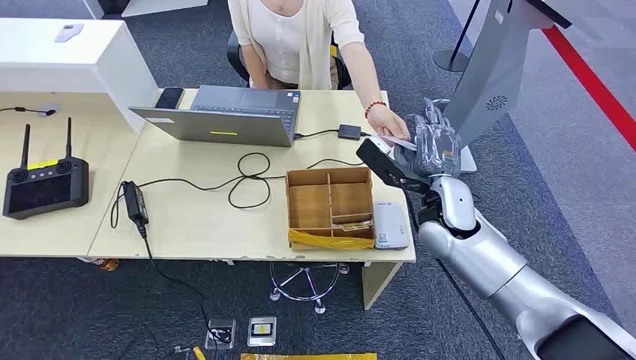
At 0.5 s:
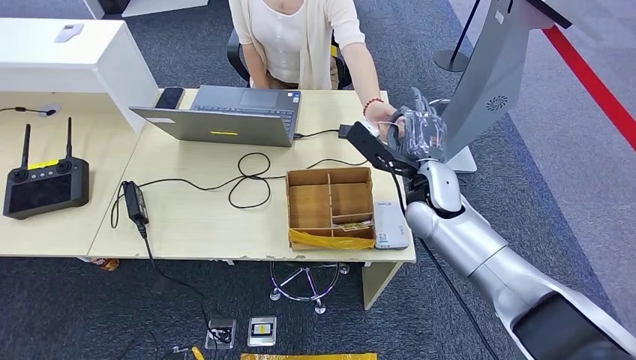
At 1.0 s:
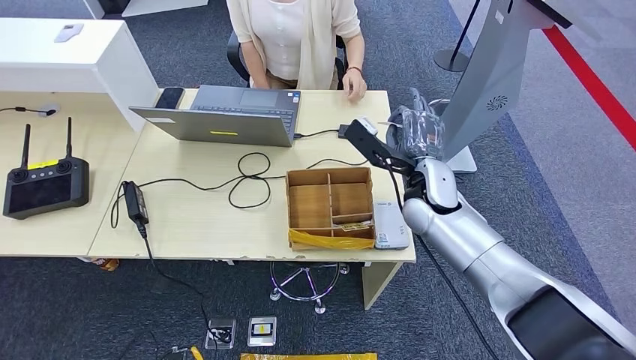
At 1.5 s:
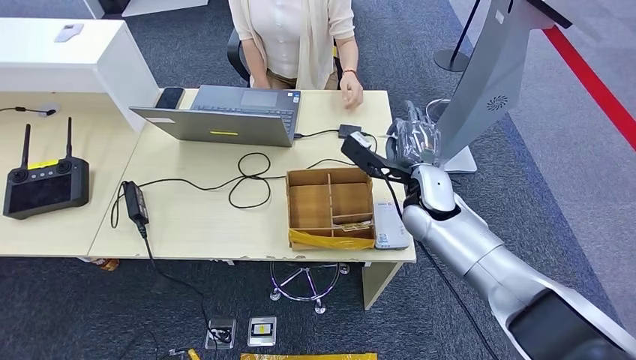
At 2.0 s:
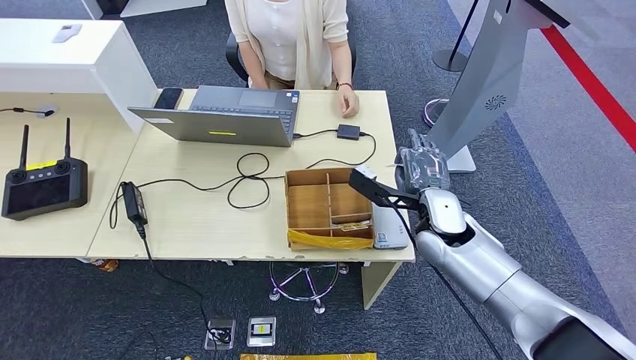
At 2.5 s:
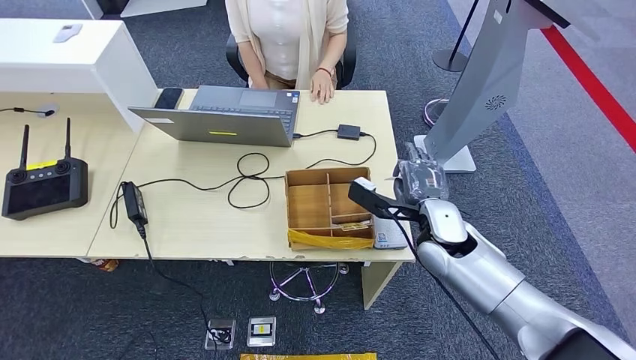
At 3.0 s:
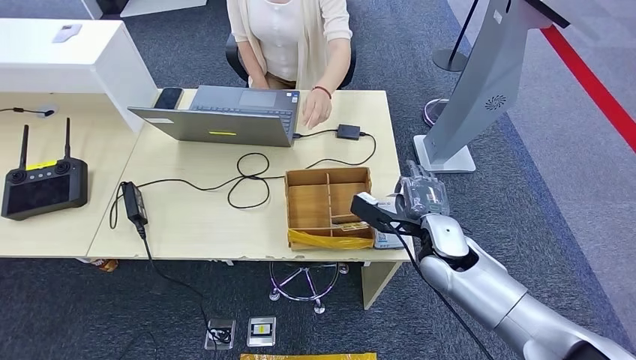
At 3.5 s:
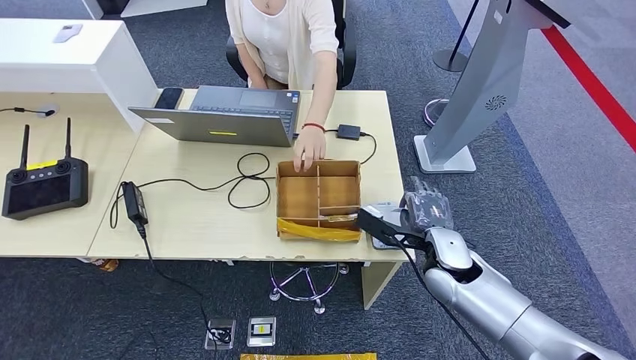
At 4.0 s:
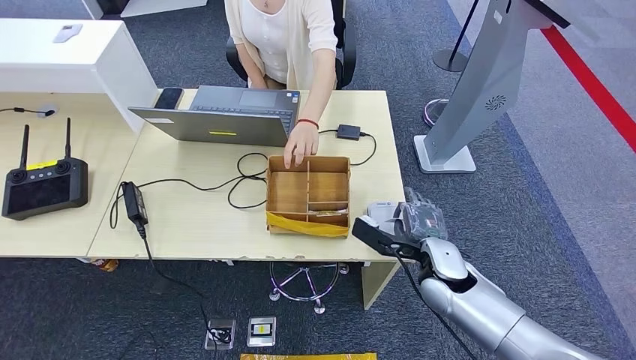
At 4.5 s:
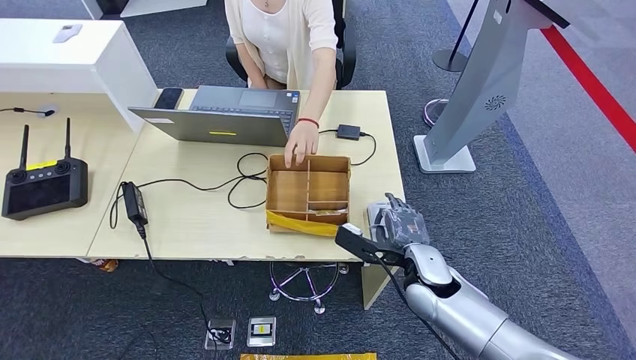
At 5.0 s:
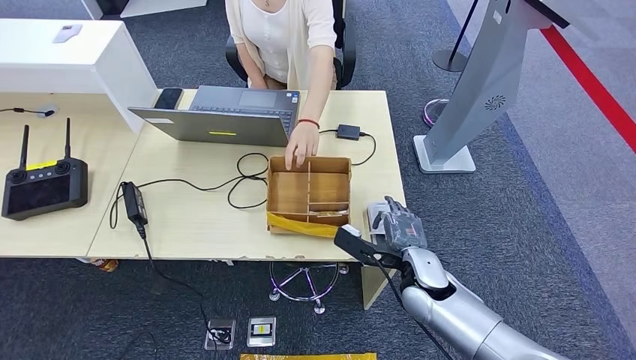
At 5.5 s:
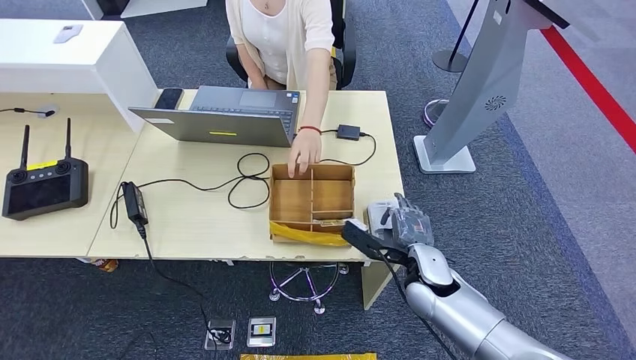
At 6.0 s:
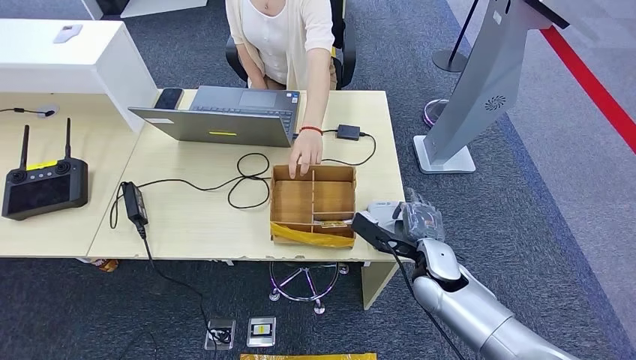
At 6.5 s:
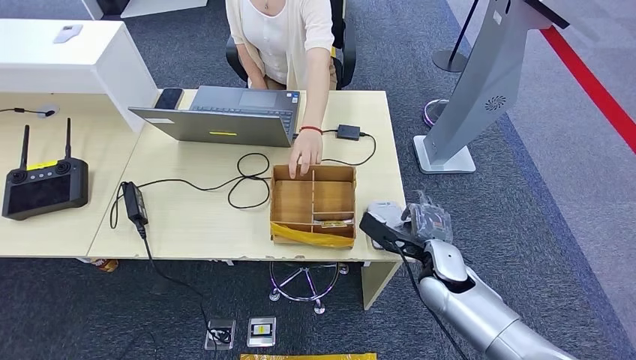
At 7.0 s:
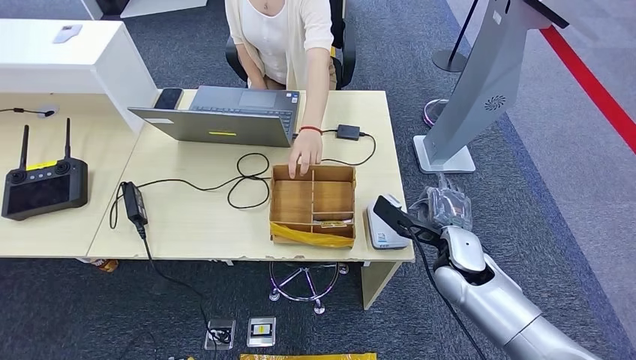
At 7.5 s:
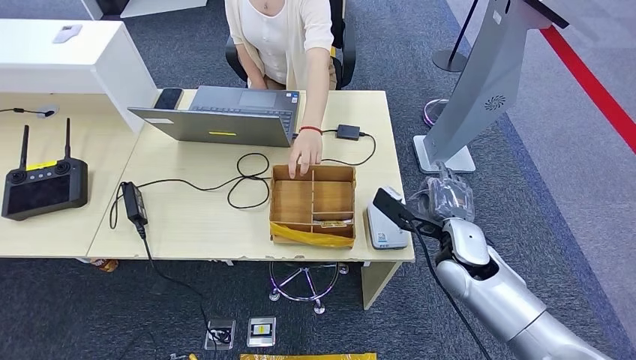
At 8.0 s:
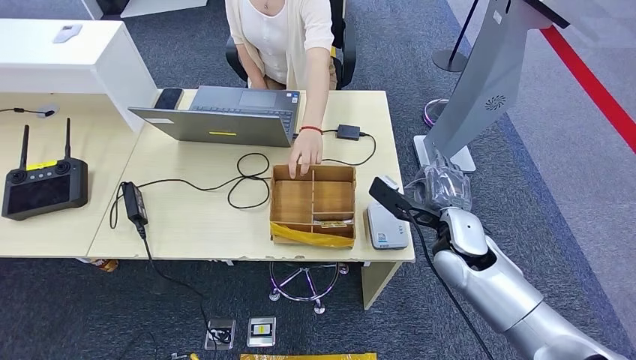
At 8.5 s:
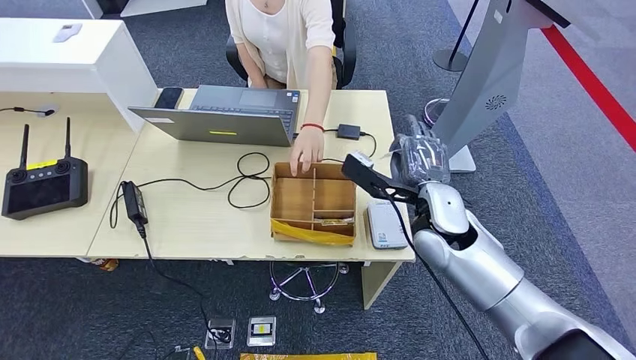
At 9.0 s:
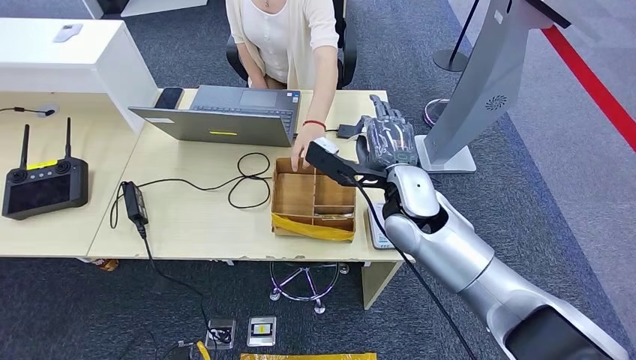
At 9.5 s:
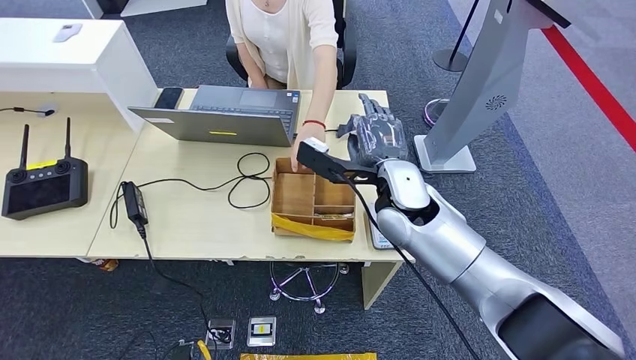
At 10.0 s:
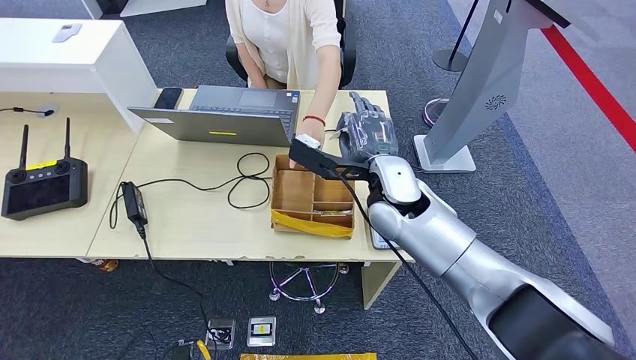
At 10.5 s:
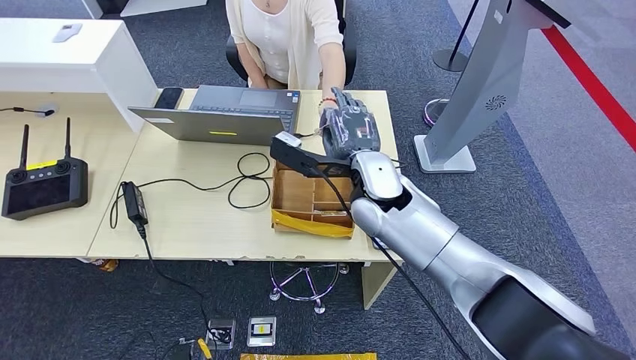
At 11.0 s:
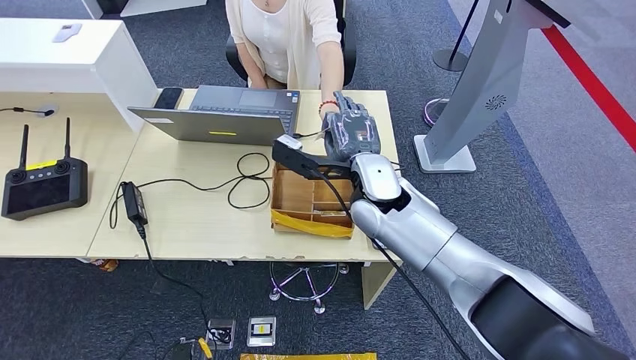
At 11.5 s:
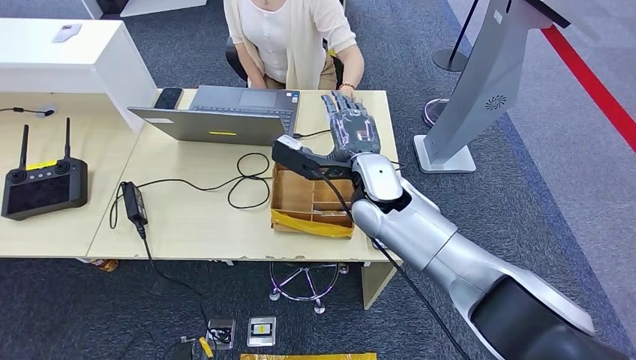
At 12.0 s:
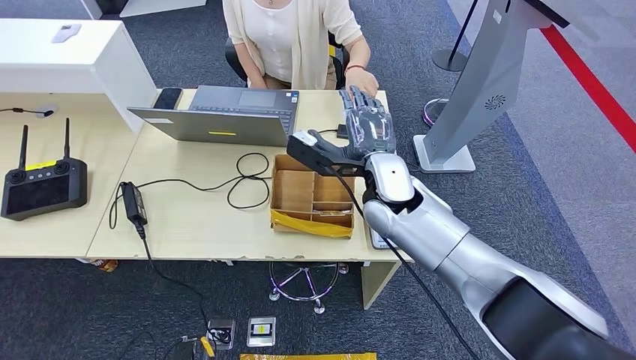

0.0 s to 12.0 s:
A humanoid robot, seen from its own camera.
Step, 0.0 to 3.0 s: Take the ID card from the person's hand.
Step, 3.5 to 7.5 s: Place the ID card on the card reader.
2.0 to 4.0 s: The right hand is displaced downward and backward by roughly 10 cm.
4.0 to 6.0 s: The hands make only small movements.
6.0 to 8.0 s: The right hand shifts approximately 5 cm upward.
8.0 to 10.0 s: The right hand moves to the left, upward and forward, approximately 15 cm.
10.0 to 12.0 s: The hands move only a little.

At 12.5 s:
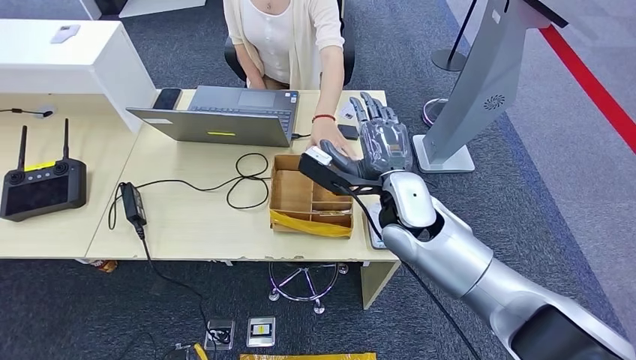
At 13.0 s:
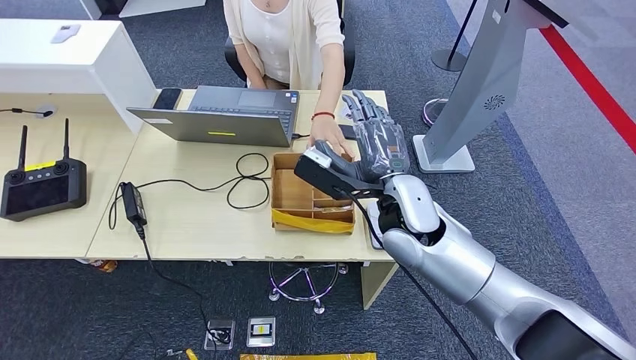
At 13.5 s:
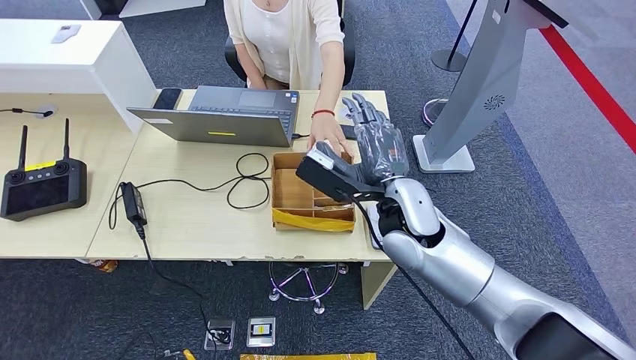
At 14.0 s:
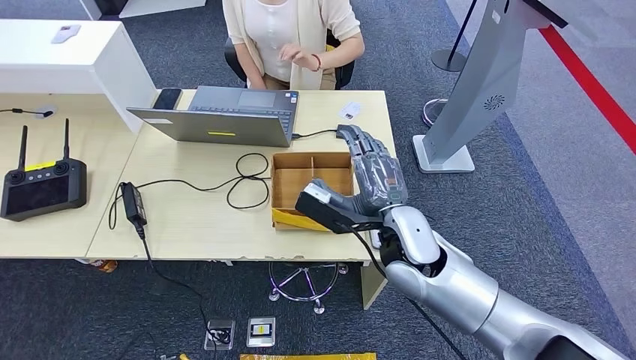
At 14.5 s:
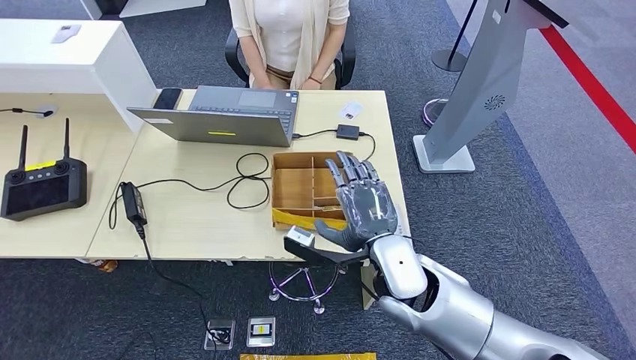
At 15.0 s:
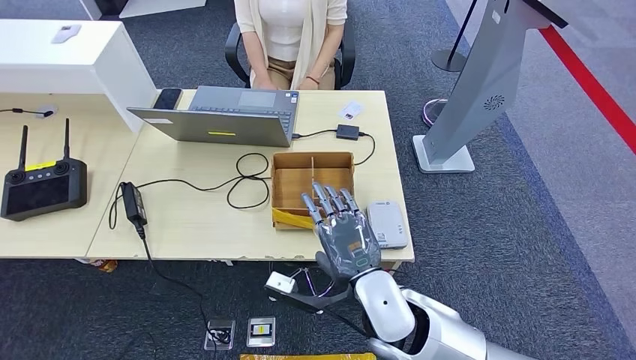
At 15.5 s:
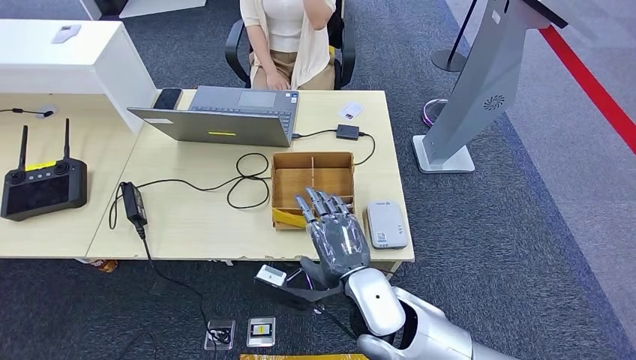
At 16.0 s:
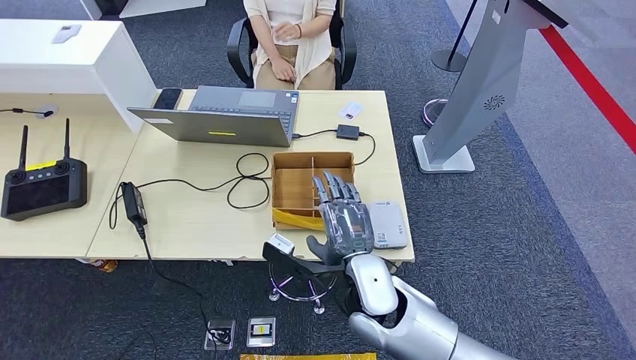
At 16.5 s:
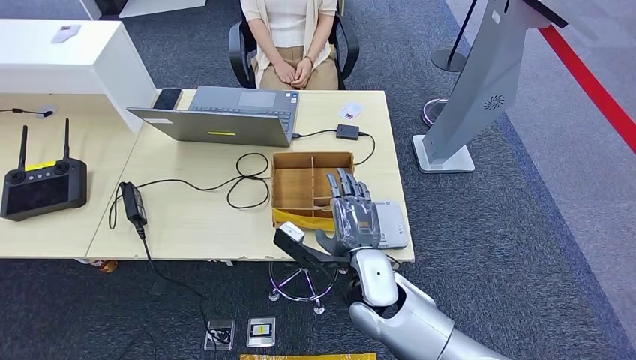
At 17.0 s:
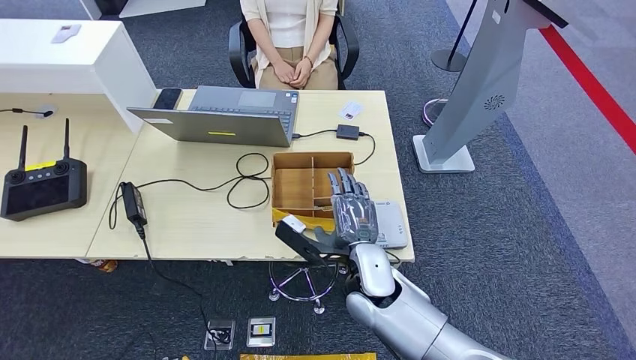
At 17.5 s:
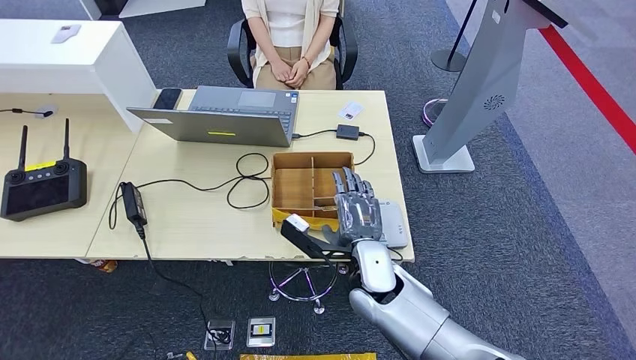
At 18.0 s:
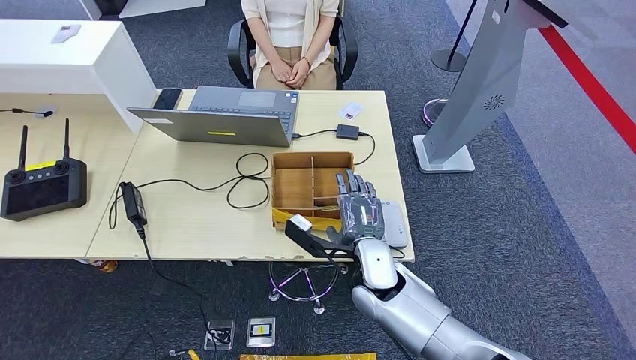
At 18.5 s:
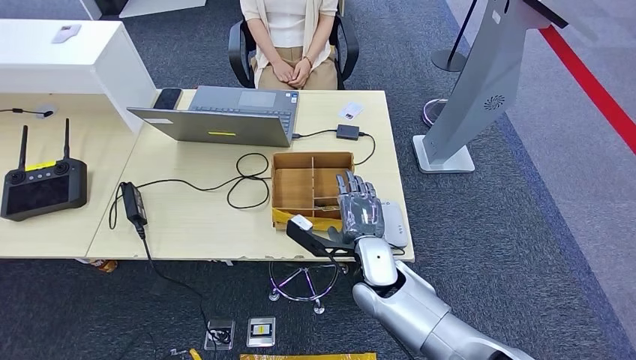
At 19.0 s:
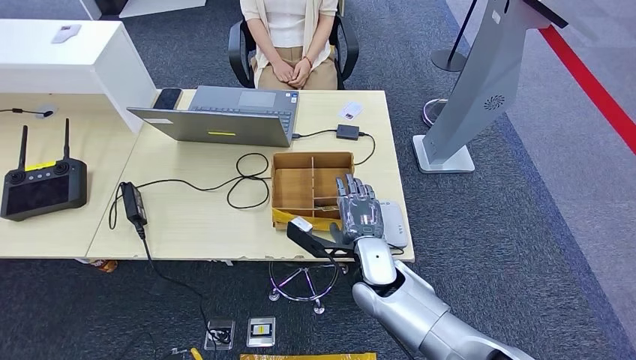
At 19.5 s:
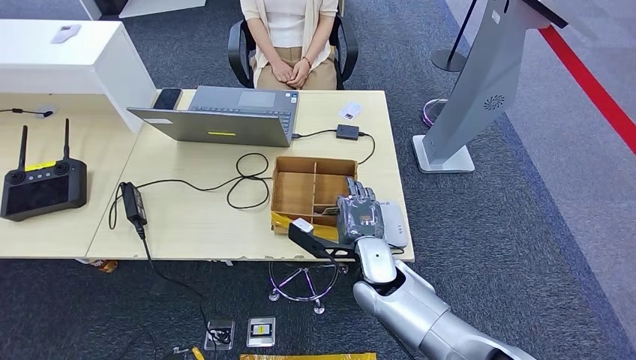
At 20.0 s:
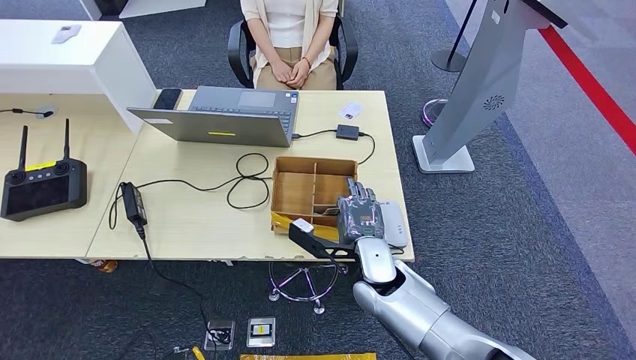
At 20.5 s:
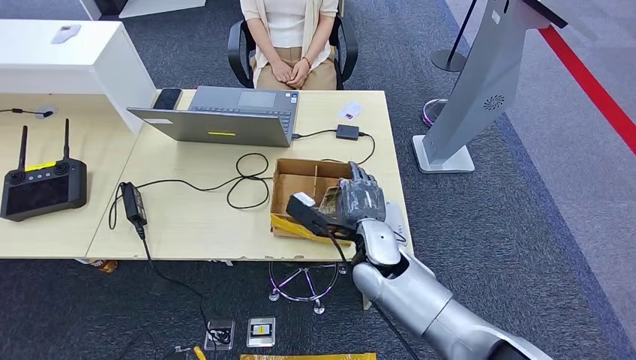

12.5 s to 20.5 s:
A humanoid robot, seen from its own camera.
12.5 to 14.5 s: The right hand is displaced backward and downward by some 10 cm.
14.5 to 16.5 s: The right hand changes place by some 5 cm.
16.5 to 20.5 s: The hands move only a little.
